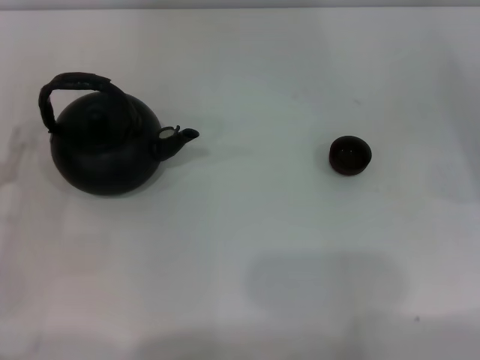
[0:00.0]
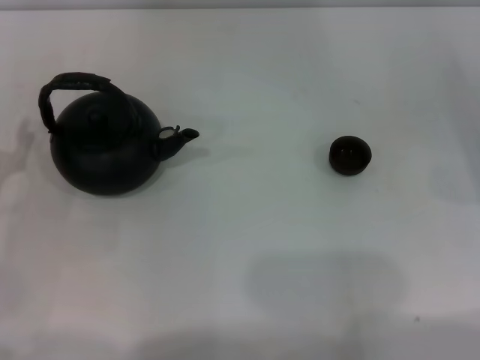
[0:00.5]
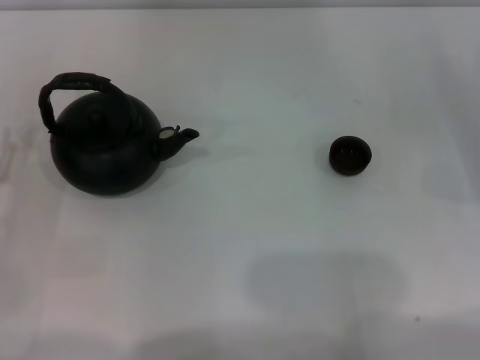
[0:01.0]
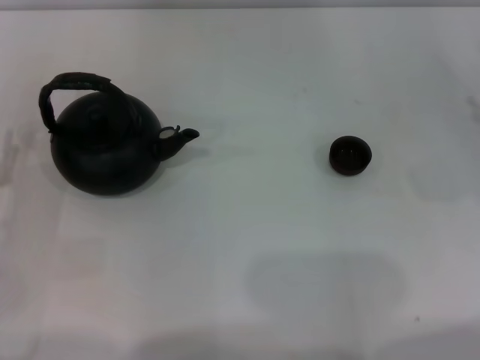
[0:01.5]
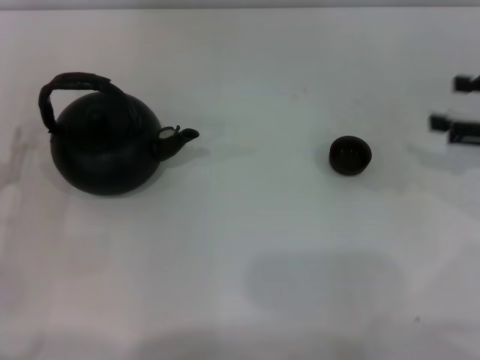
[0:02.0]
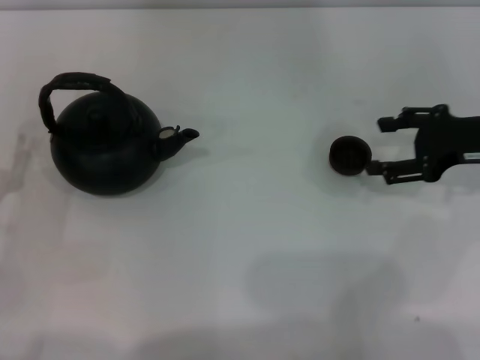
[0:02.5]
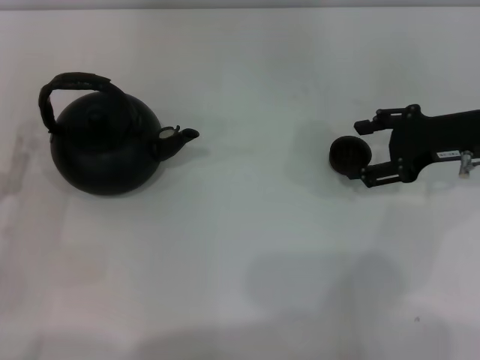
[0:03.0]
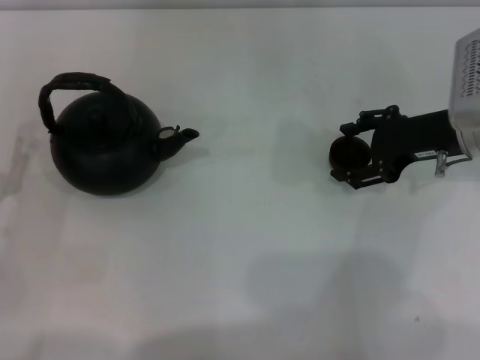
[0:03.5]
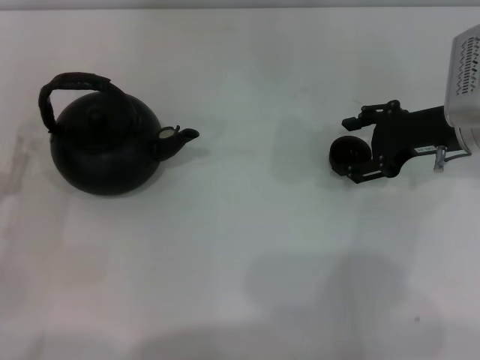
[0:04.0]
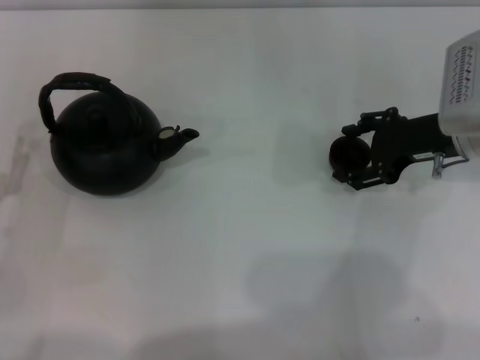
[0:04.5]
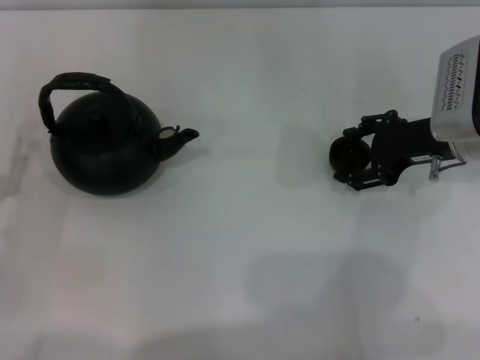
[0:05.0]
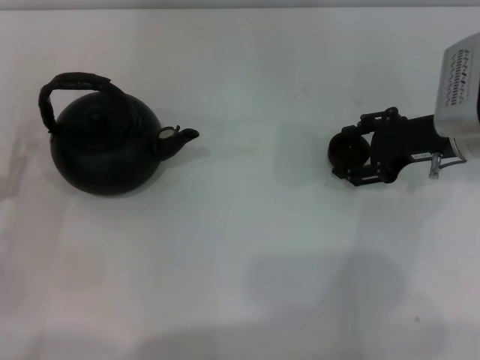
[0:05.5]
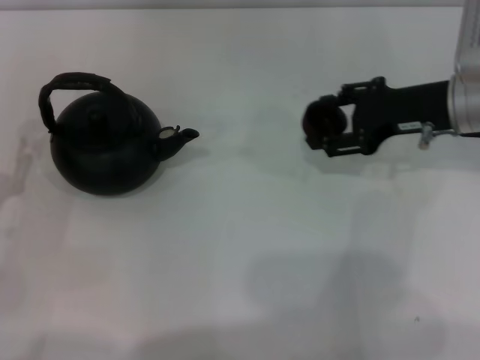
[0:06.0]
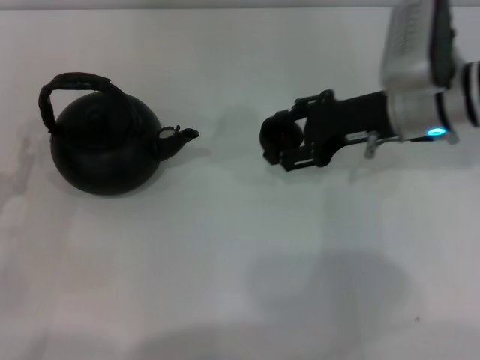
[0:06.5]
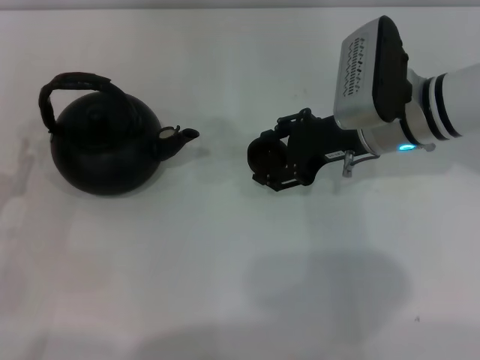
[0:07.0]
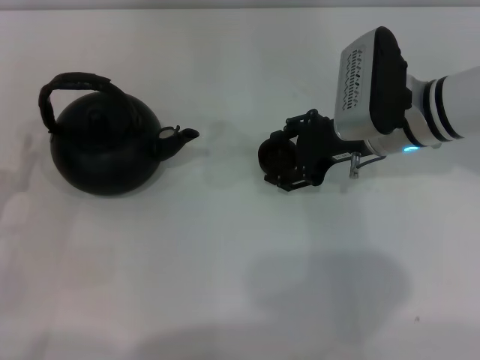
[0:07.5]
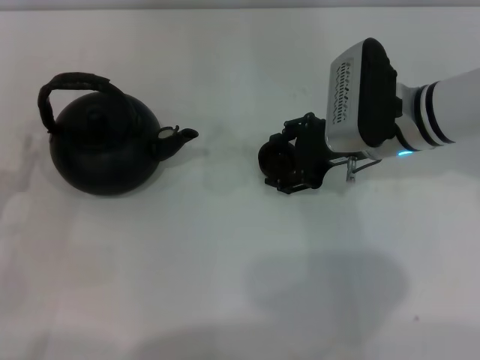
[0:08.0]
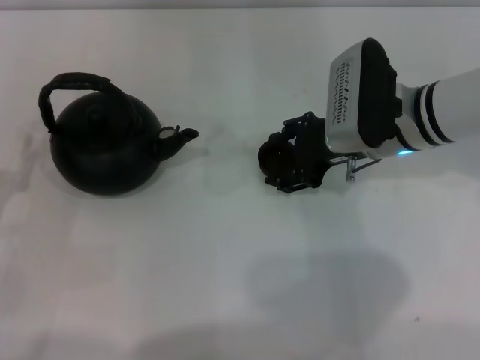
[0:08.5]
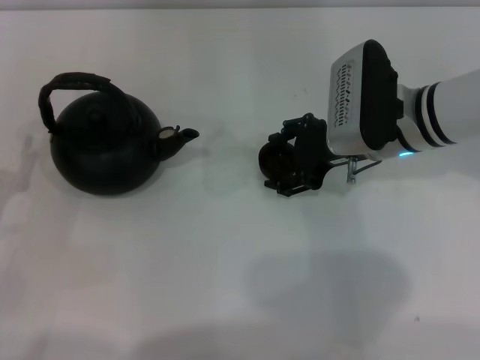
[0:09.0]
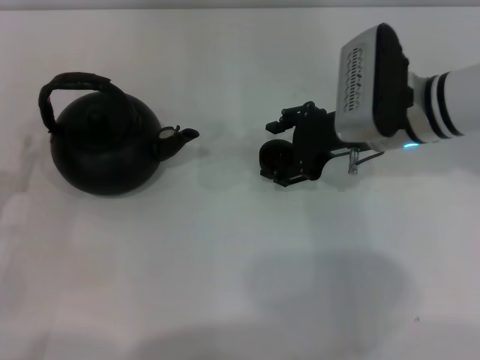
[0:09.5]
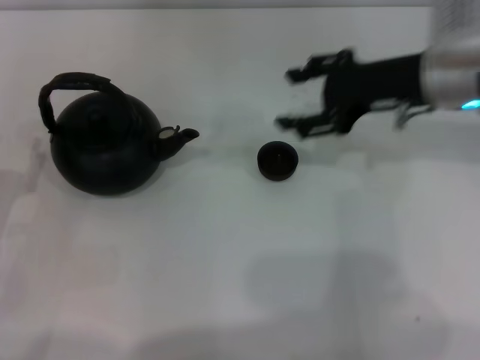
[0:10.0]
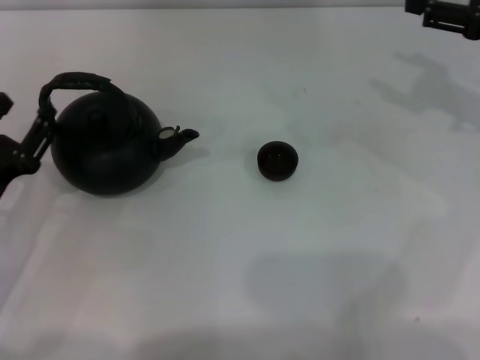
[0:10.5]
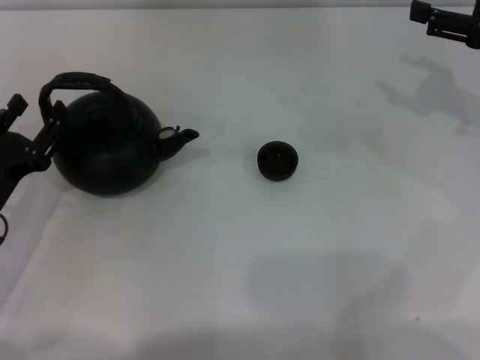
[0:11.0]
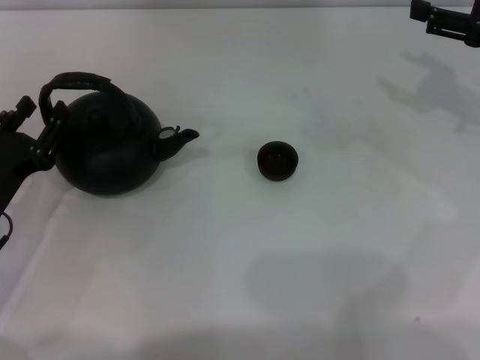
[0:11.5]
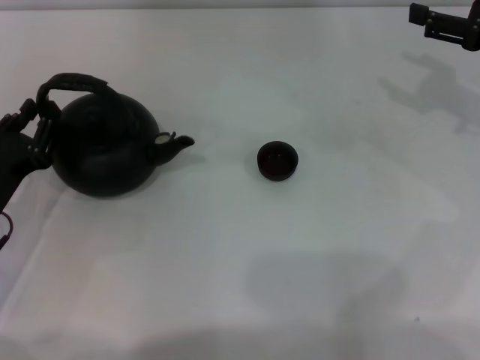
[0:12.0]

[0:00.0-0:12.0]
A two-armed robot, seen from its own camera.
Task of the whole recording: Grasp the handle of the teapot with one hand and pour tea into the teacup.
Step, 0:00.0 to 0:05.5: Pick up the teacup with the right gripper.
Step, 0:06.0 to 0:09.5: Place the teacup in the center of view with the right gripper.
0:00.0 to 0:02.0: The right gripper travels upward by about 10 cm.
0:02.0 to 0:04.0: The right gripper goes some 10 cm to the left.
0:04.0 to 0:06.0: The grippers stay close to where they were, moving slightly.
0:06.0 to 0:08.0: The right gripper travels to the left by approximately 10 cm.
0:08.0 to 0:10.0: The right gripper travels upward and to the right by approximately 10 cm.
0:10.0 to 0:12.0: The right gripper travels to the right by approximately 10 cm.

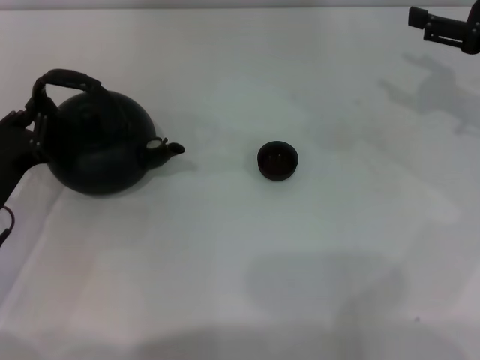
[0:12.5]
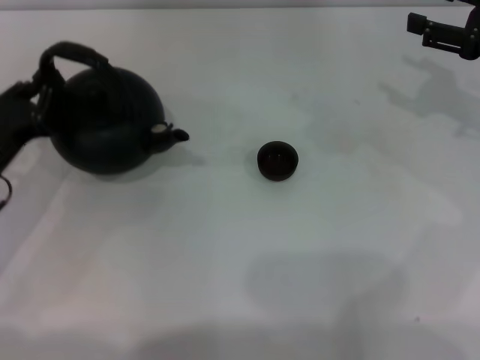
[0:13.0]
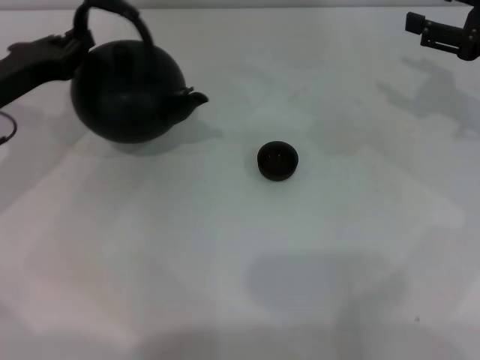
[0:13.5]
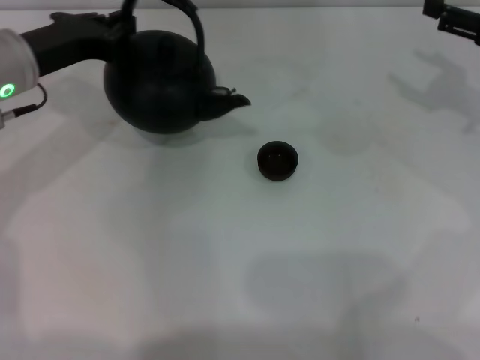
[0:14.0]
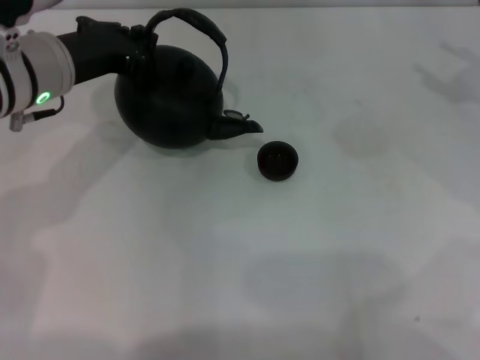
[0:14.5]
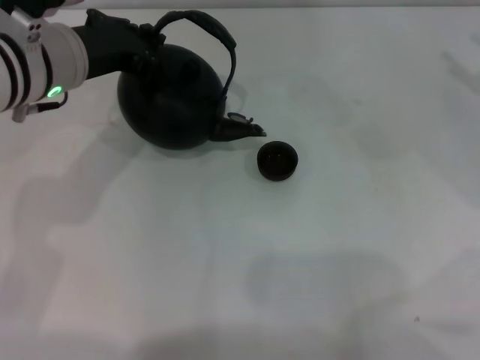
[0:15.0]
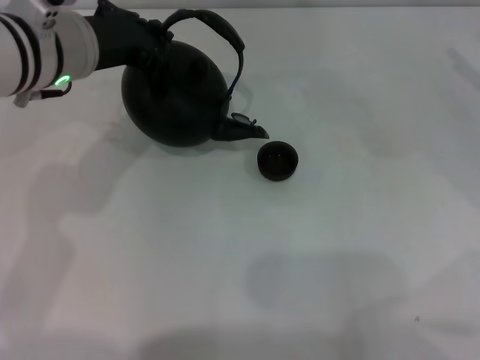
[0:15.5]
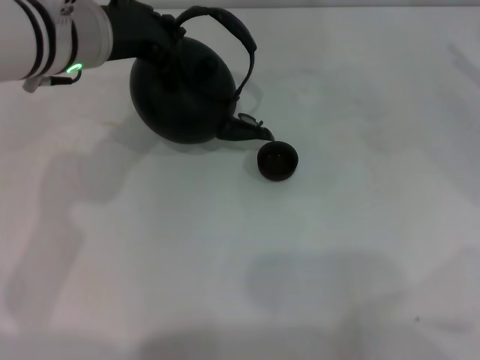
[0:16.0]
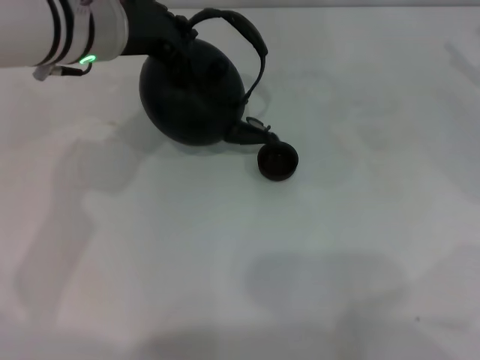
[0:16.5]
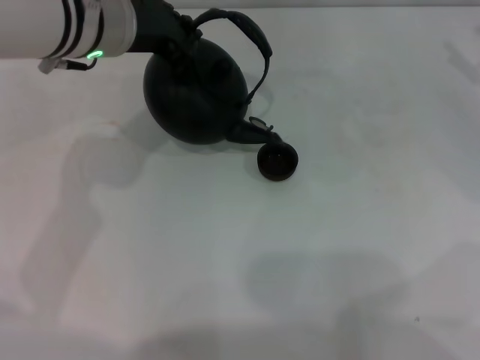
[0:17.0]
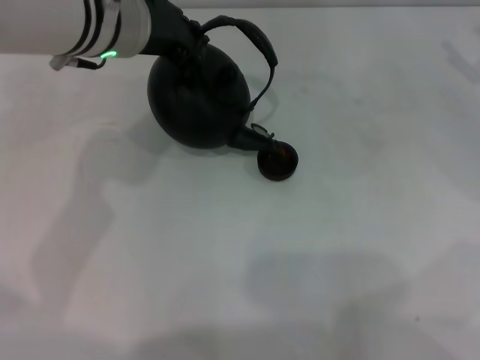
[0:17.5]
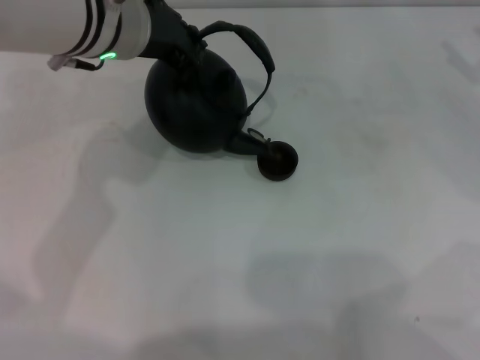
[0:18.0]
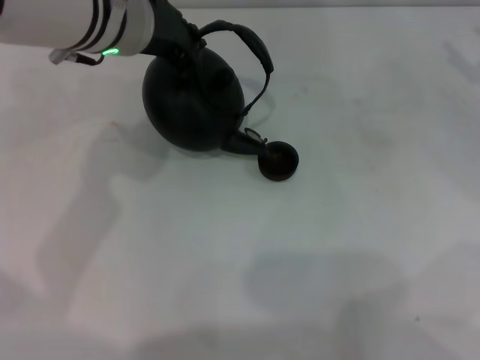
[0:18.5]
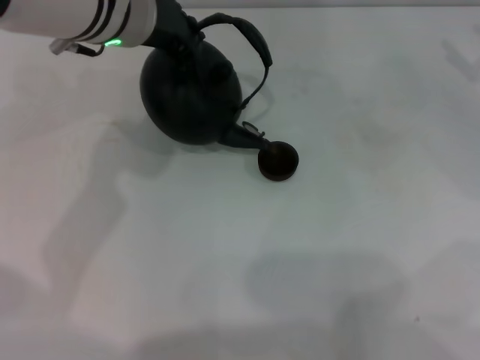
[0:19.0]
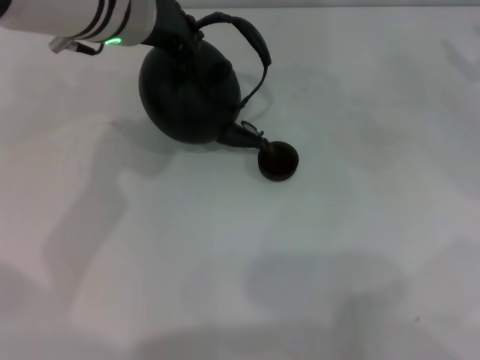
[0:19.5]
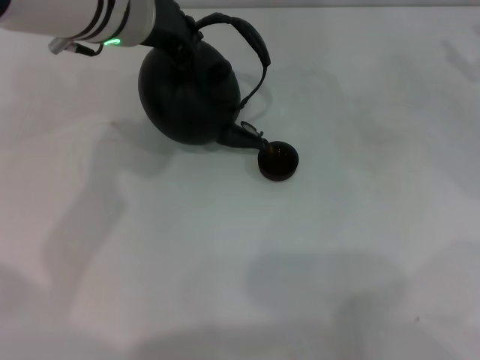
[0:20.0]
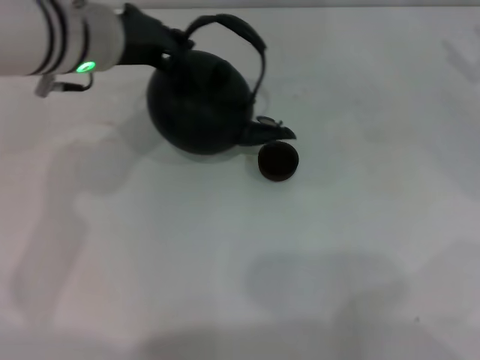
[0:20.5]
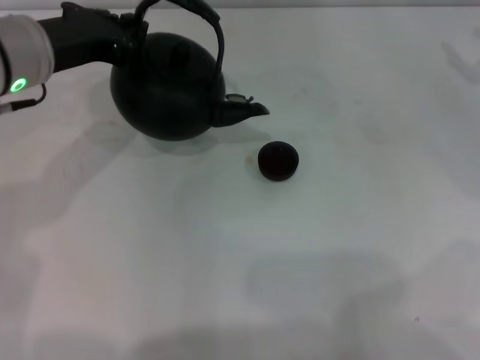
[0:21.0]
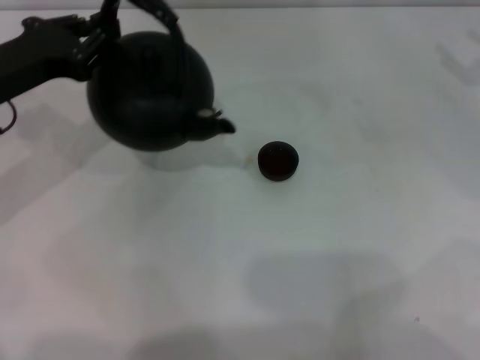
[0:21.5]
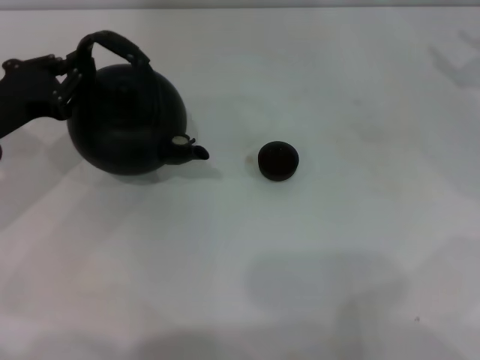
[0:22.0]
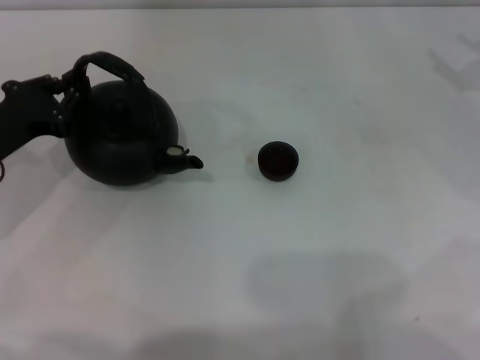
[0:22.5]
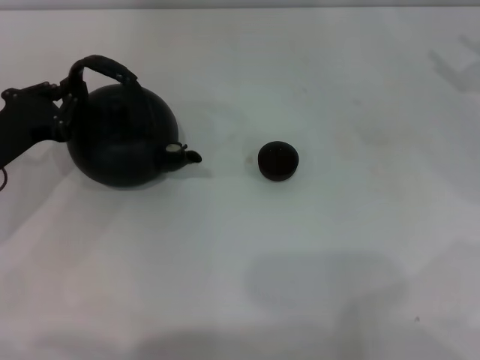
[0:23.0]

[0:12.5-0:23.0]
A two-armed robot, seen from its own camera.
Task of the whole recording: Grasp the handle of the teapot with one hand and pour tea into the teacup.
Step, 0:13.5 to 0:20.5: Pour tea into the teacup with the left gripper.
0:12.5 to 0:14.5: The left gripper heads upward, forward and to the right, covering some 20 cm.
0:14.5 to 0:16.5: The left gripper moves to the right, some 5 cm.
0:16.5 to 0:19.0: There are only small adjustments of the grippers.
0:19.0 to 0:21.0: The left gripper is displaced to the left by some 10 cm.
0:21.0 to 0:23.0: The left gripper shifts some 15 cm downward and to the left.

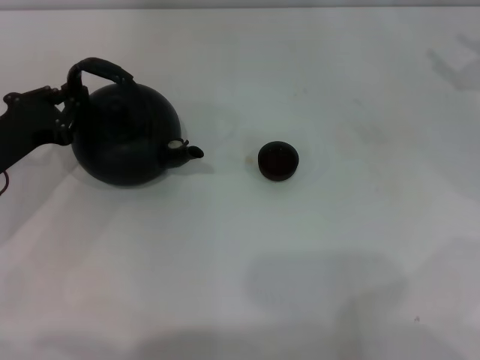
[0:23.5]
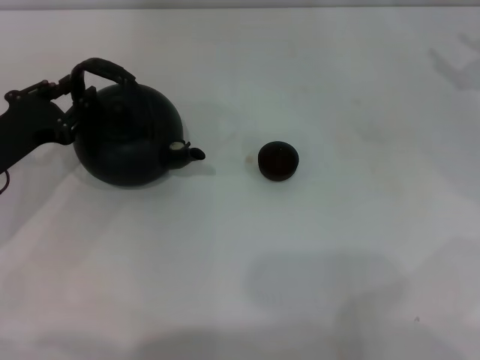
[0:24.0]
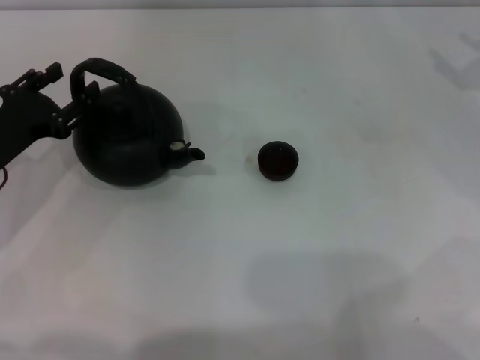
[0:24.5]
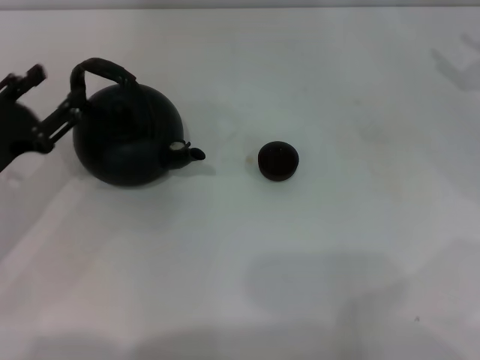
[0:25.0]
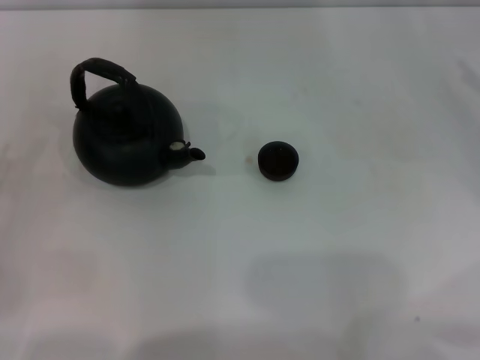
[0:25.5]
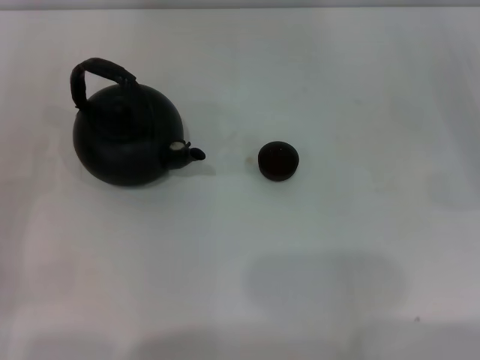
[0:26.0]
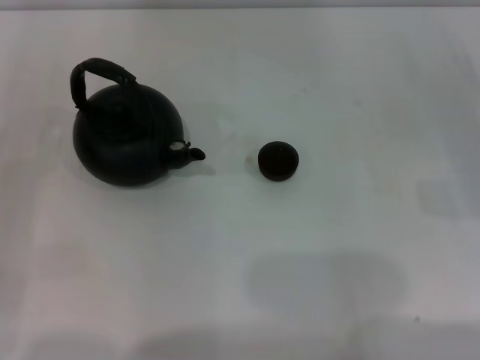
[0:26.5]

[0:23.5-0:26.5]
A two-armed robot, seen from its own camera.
Task of the whole recording: Grasp the handle of the teapot with one hand and pour tea into the teacup.
0:23.5 to 0:25.0: The left gripper opens its fingers.
0:25.0 to 0:26.5: The left gripper travels to the left by about 5 cm.
